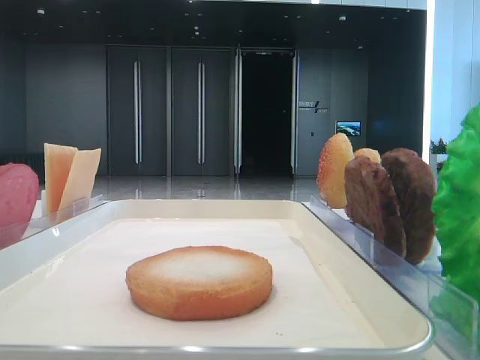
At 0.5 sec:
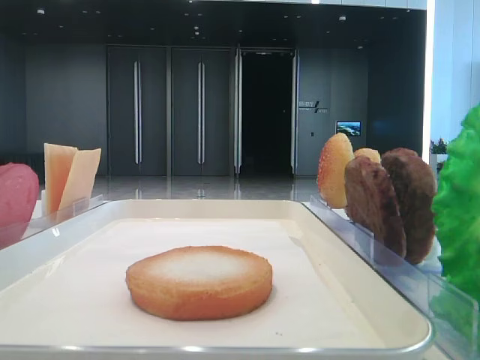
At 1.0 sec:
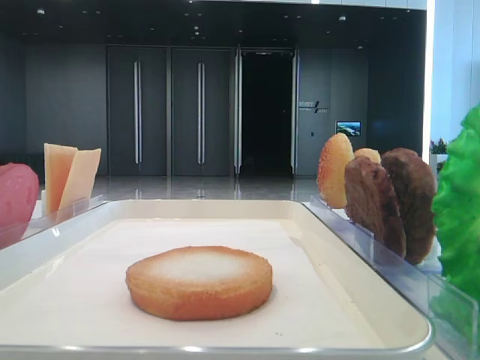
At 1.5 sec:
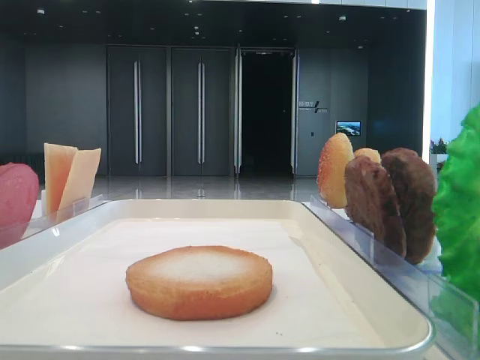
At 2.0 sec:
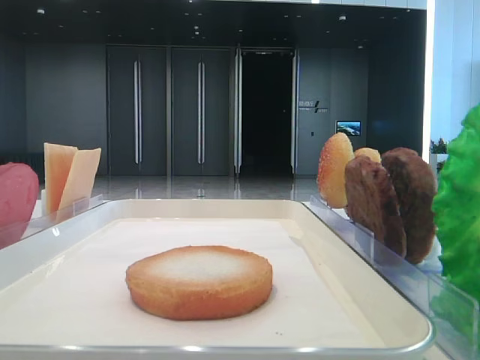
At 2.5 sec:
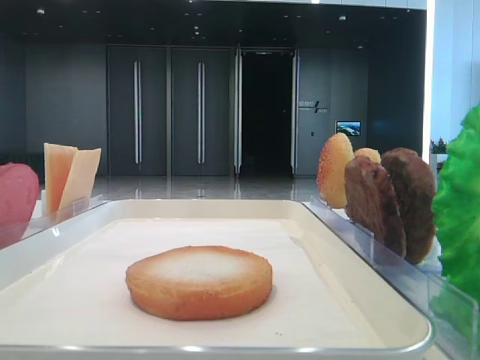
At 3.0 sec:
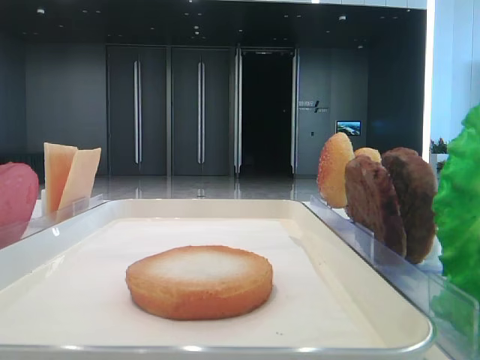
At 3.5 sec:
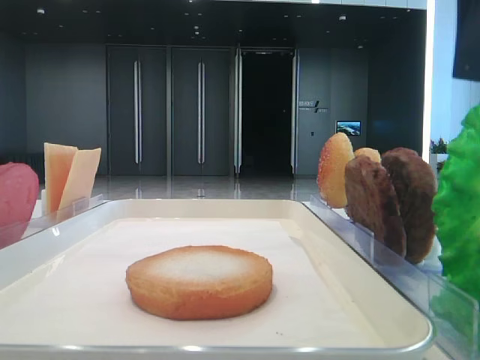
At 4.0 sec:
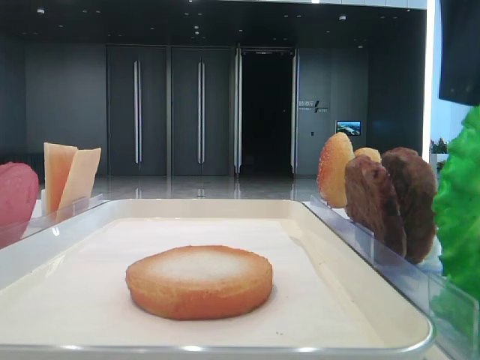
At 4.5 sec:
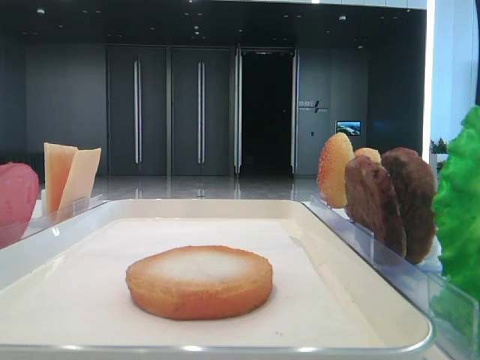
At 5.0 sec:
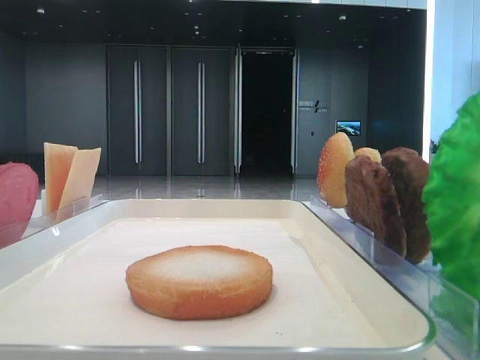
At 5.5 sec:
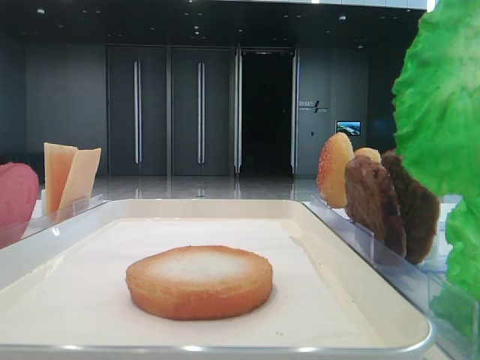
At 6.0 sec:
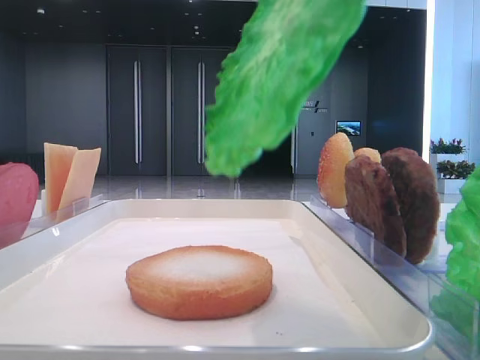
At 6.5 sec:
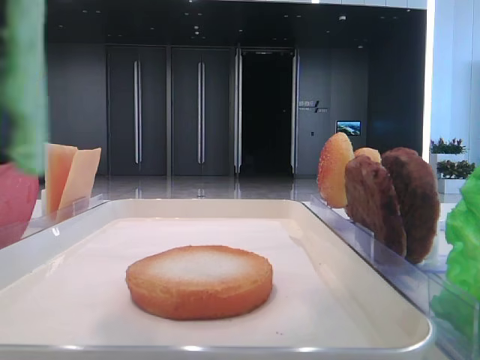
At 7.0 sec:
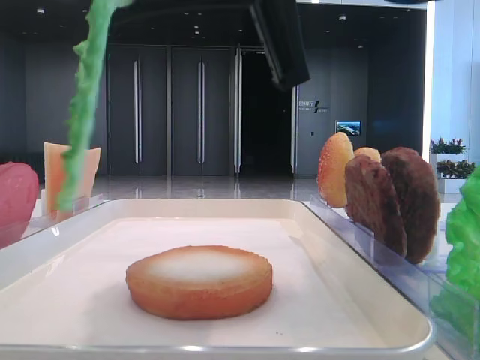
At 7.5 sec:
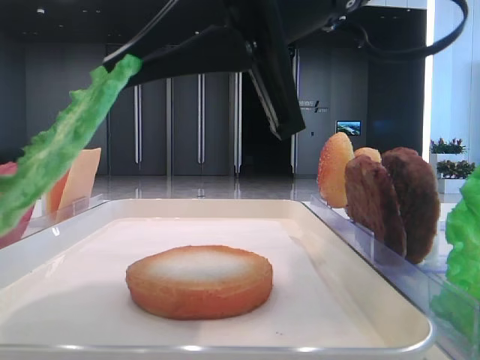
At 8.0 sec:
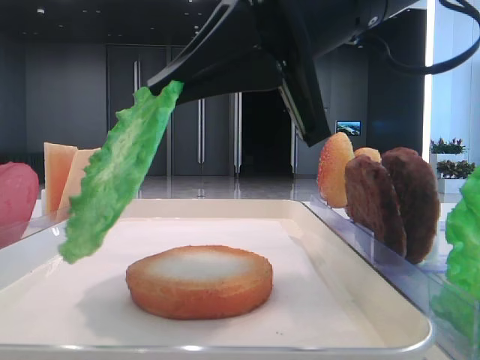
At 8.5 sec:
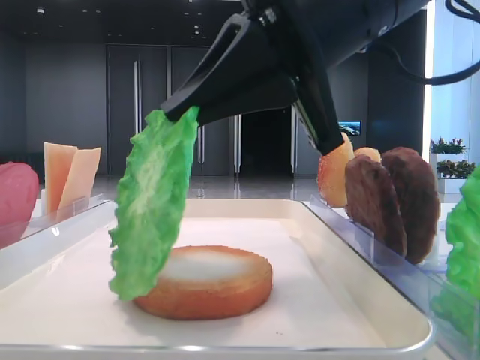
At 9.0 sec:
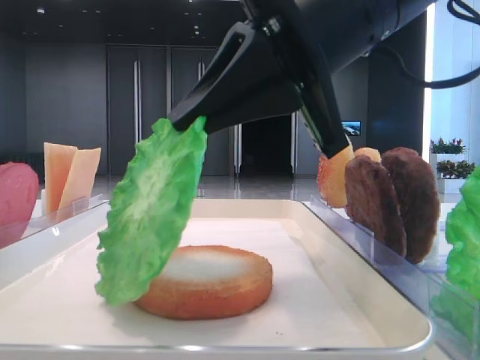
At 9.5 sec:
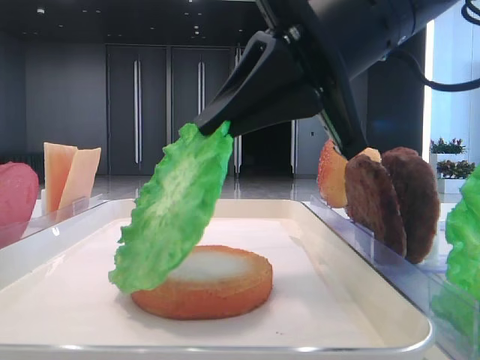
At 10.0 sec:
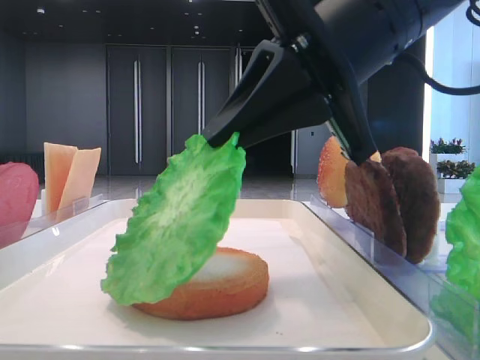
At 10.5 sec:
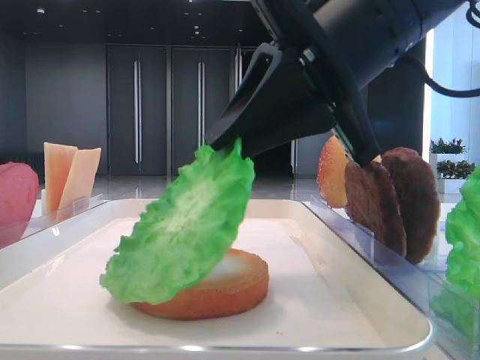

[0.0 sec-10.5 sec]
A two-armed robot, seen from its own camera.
Step, 0.0 sec to 4.5 sec: Grab the lettuce leaf with the right hand.
2.0 sec to 4.0 sec: The right gripper shifts about 15 cm to the left.
4.0 sec to 6.5 sec: The right gripper goes approximately 10 cm to the left, and closes.
6.5 sec to 8.5 sec: The right gripper shifts about 10 cm forward and downward.
8.5 sec to 10.5 sec: The grippers make only small movements.

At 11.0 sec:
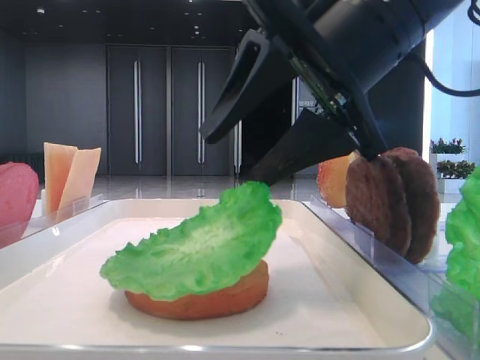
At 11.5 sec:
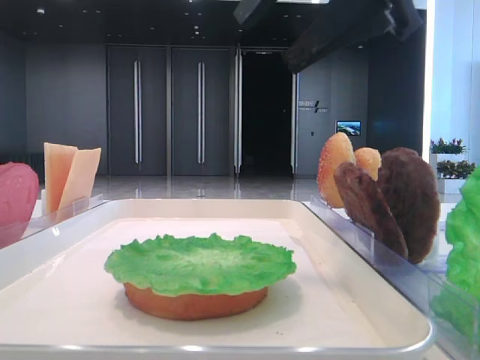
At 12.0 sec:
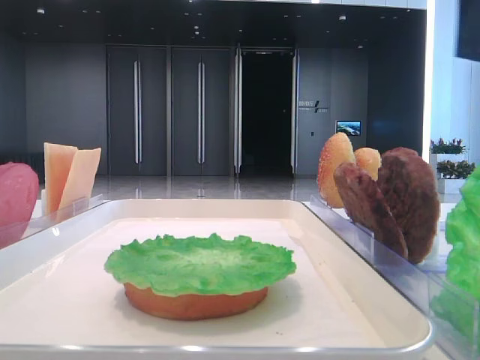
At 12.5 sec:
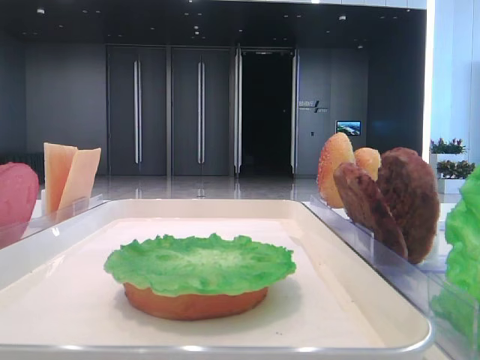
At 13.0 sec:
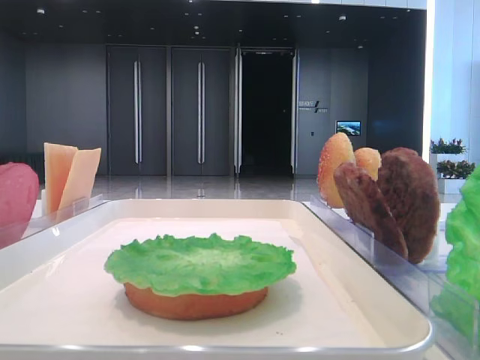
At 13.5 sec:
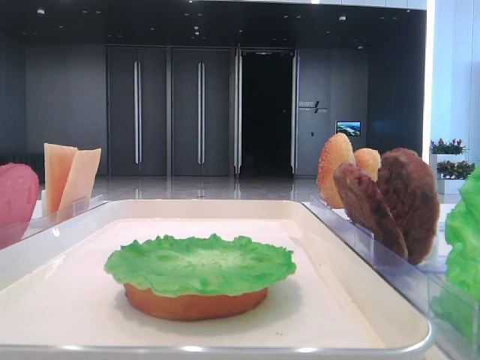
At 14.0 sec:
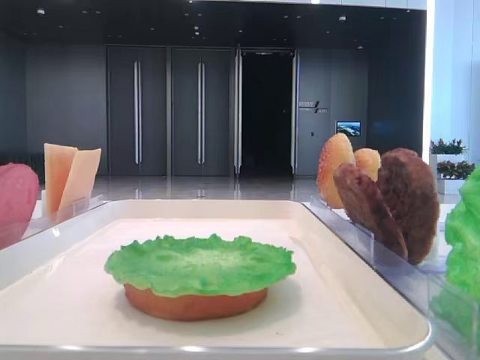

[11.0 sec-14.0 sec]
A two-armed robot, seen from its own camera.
11.0 sec to 12.5 sec: The right gripper heads to the right and upward, covering about 25 cm.
